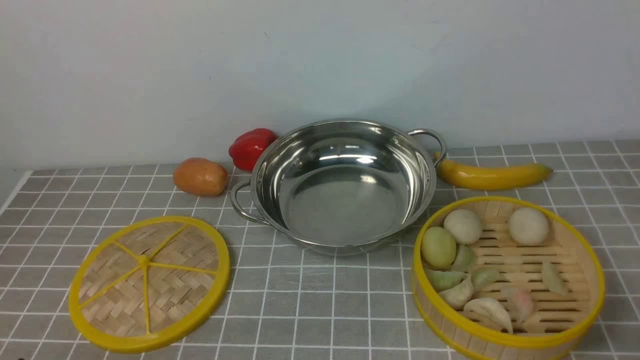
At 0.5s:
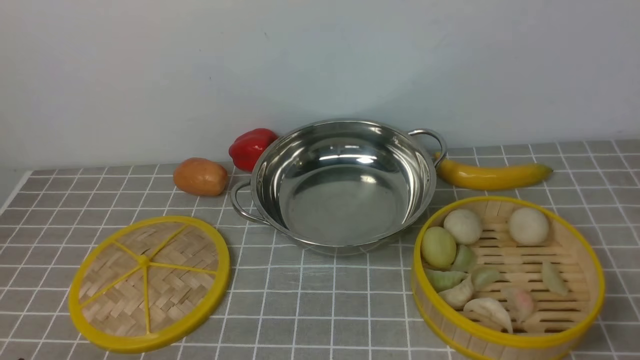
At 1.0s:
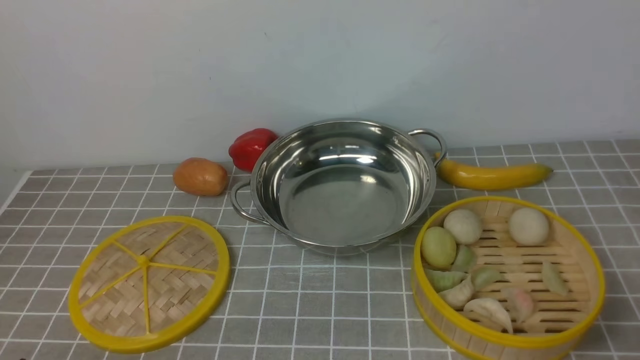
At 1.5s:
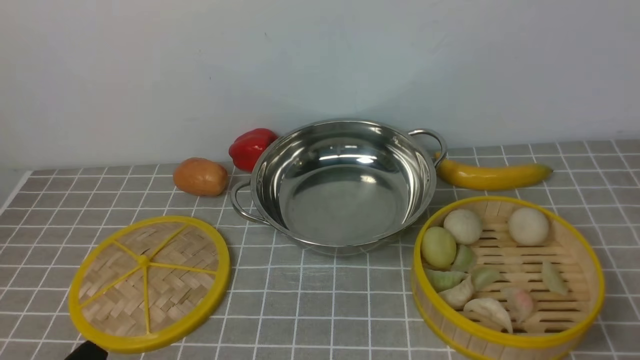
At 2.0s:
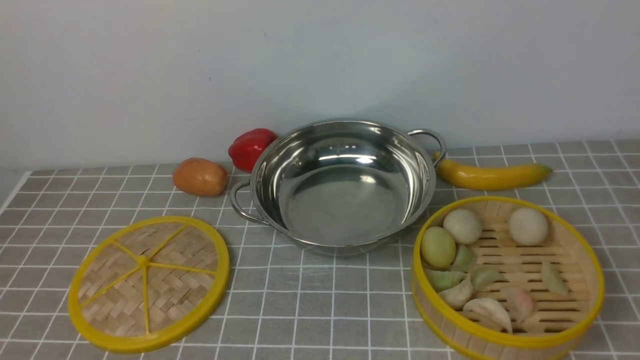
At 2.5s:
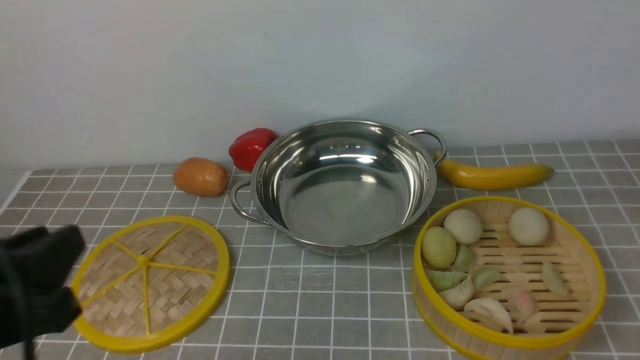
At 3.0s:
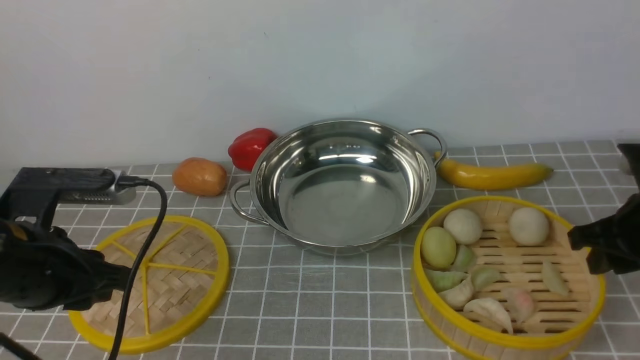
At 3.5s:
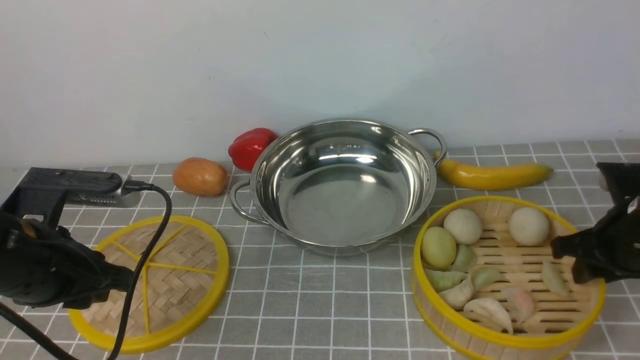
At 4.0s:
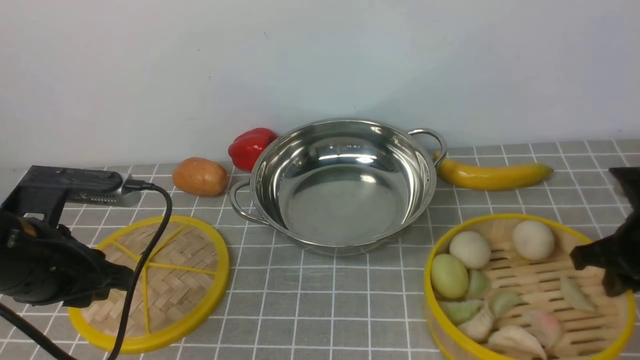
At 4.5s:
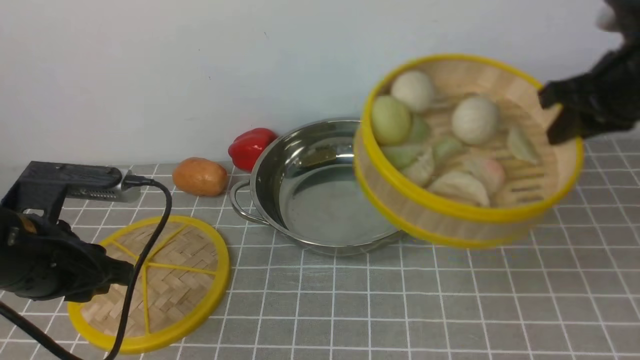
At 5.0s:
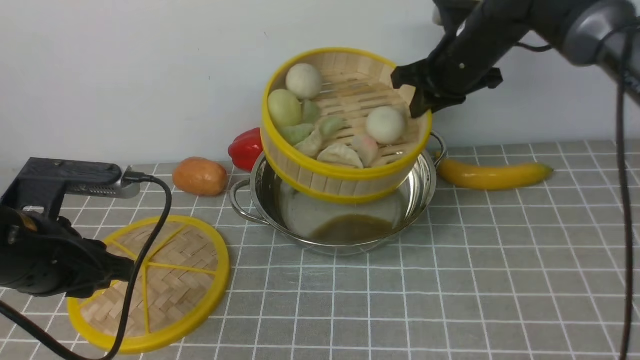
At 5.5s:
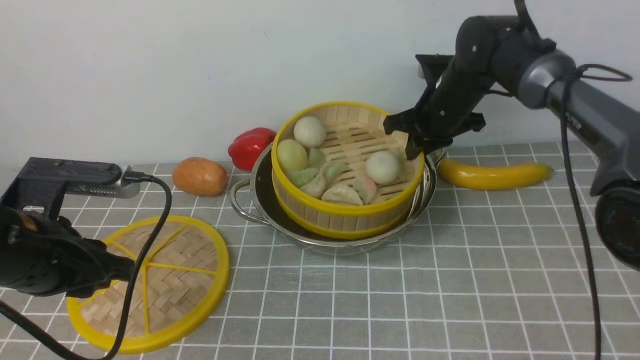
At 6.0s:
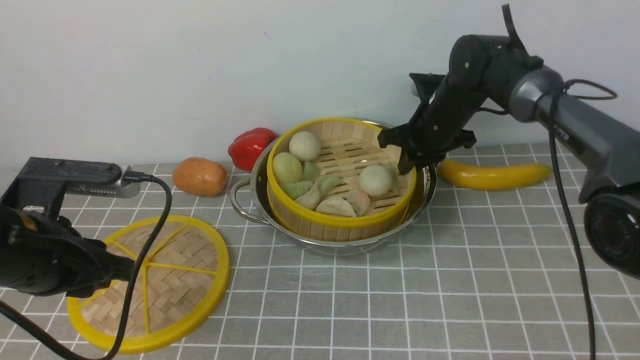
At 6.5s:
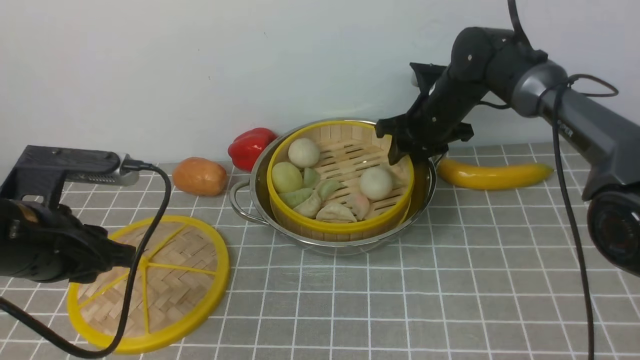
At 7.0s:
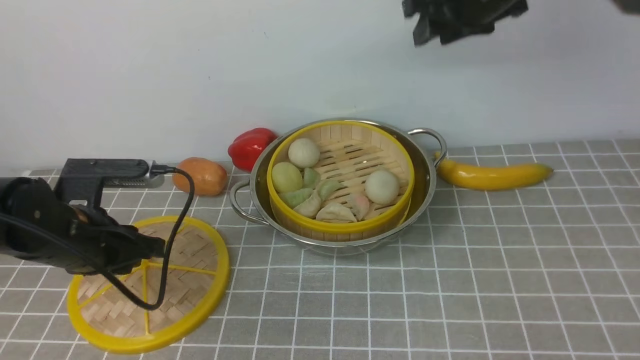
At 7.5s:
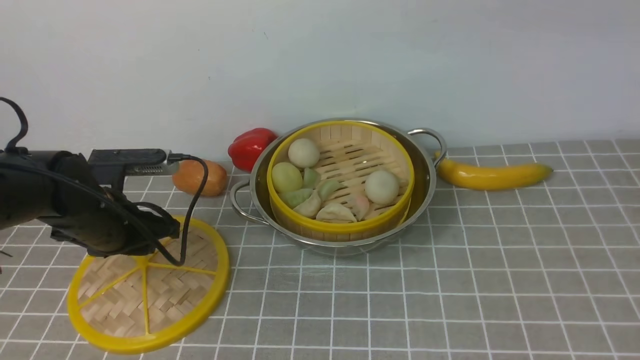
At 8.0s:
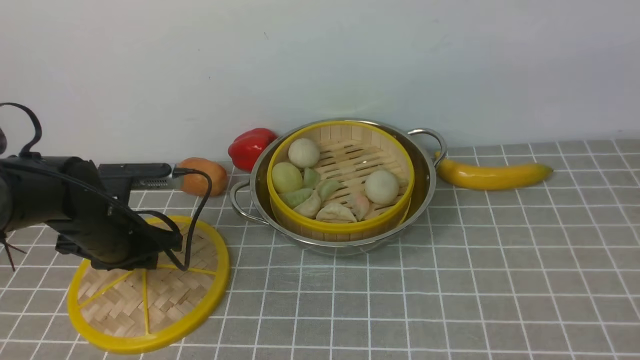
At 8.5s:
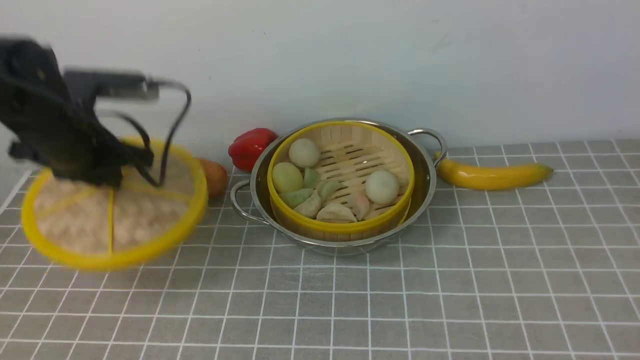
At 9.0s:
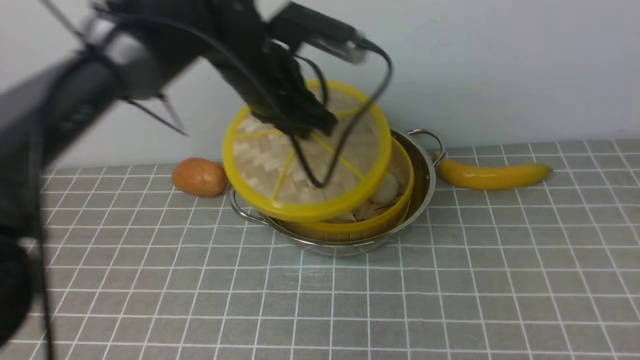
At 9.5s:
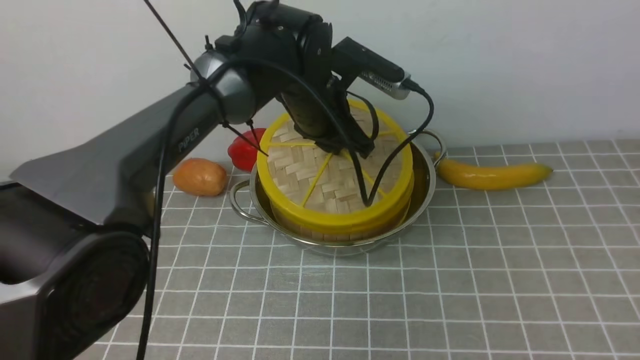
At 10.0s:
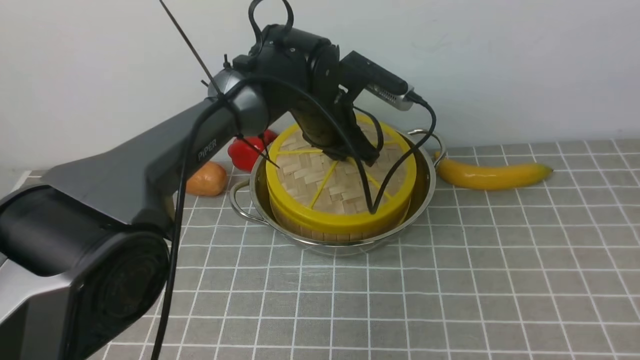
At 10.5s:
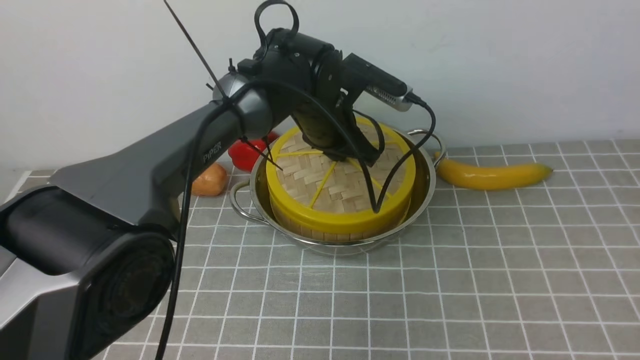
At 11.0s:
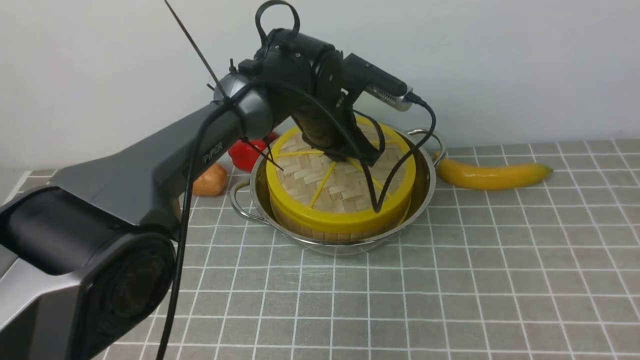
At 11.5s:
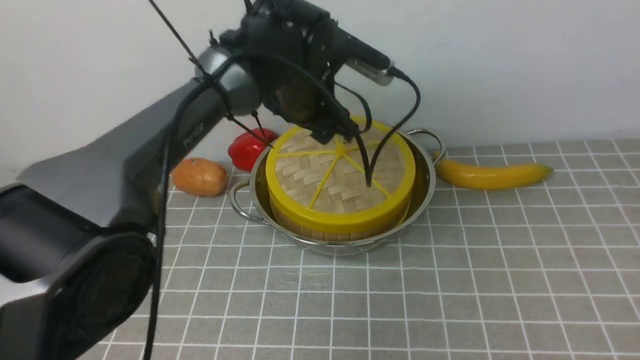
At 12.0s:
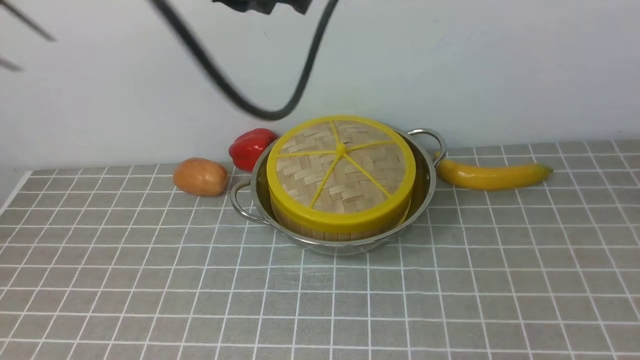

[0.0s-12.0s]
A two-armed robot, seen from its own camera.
Task of the whole recording: place the steamer in the pot on the grey tablecloth, and put the lid on the steamer.
Step, 0.0s to 4.0s: use the right arm to lift the steamer closest to it.
Step, 4.5s to 6.5s: use the right arm to put the steamer into the iron steamer pot in the middle.
Step, 8.5s to 11.0s: use the left arm to place the steamer lid on the steamer.
2.0s to 4.0s: The right gripper goes some 30 cm forward and downward, and closes; the left gripper shifts approximately 20 cm forward.
4.0s to 6.0s: The right gripper is displaced forward and to the left by some 25 cm.
6.0s to 8.0s: The left gripper shifts roughly 15 cm forward and downward. The right gripper shifts some 50 cm upward and backward, and opens.
8.0s to 10.0s: The left gripper heads to the right and forward, covering approximately 25 cm, while the right gripper moves approximately 5 cm.
10.0s to 12.0s: The right gripper shifts roughly 15 cm backward, downward and to the right, and closes. The left gripper shifts roughly 25 cm upward and backward, and opens, then closes once more.

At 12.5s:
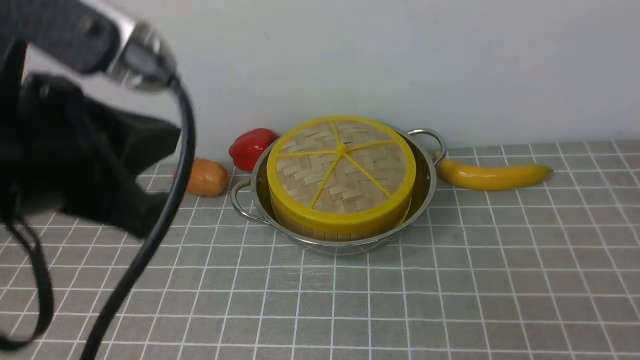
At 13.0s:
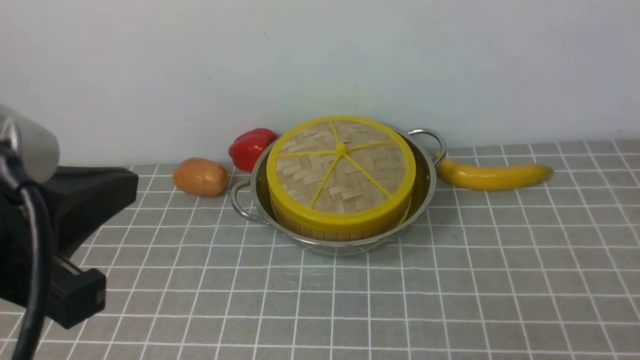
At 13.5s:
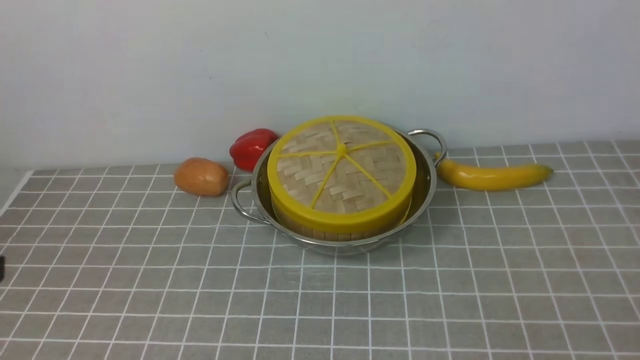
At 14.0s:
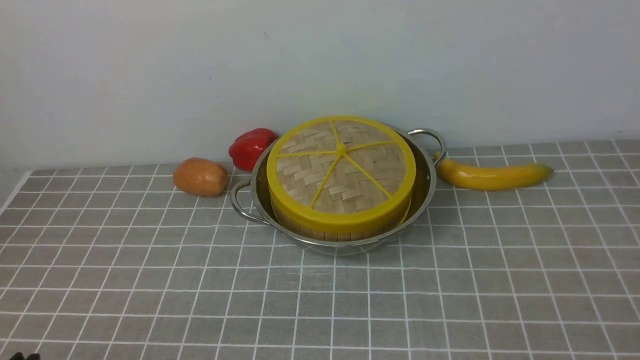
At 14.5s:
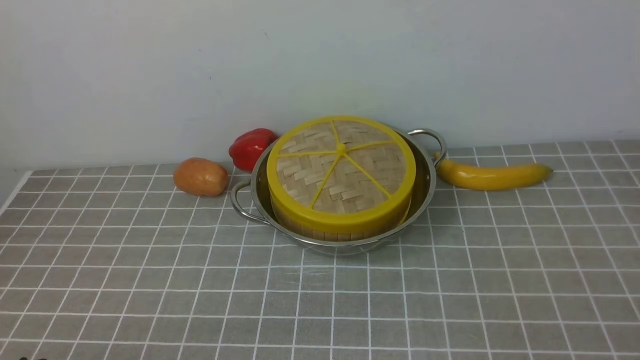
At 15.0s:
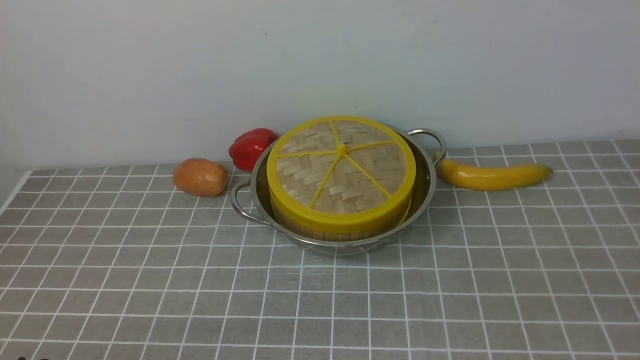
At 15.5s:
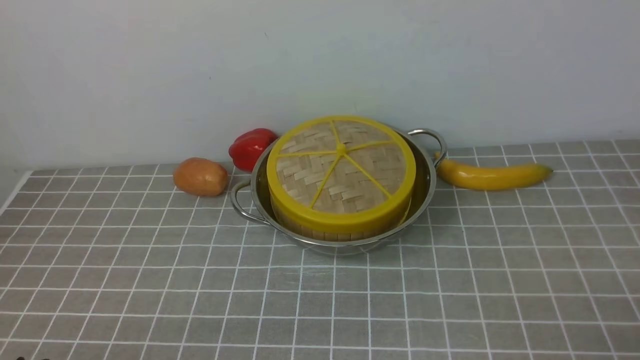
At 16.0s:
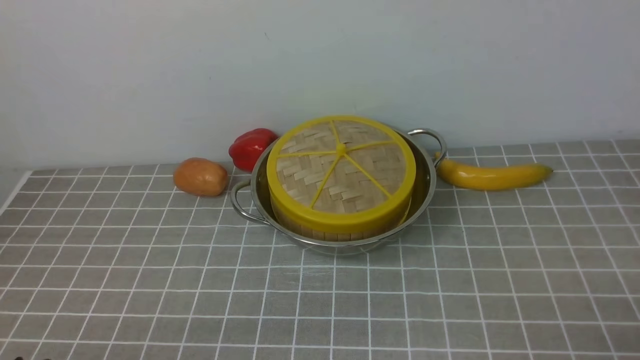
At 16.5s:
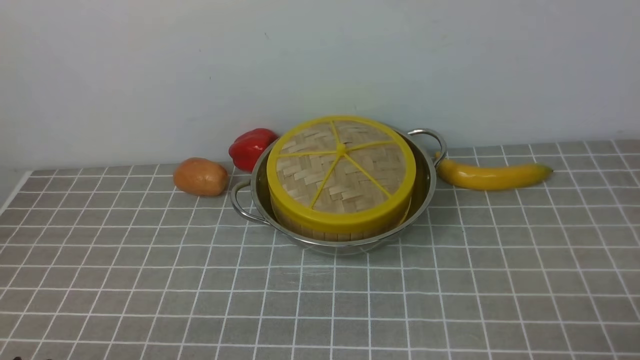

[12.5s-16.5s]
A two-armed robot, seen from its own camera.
Task of the whole recording: place the steamer in the pot on the grey tablecloth, and put the lid on the steamer.
12.5s to 14.5s: The left gripper shifts some 25 cm downward and backward.
